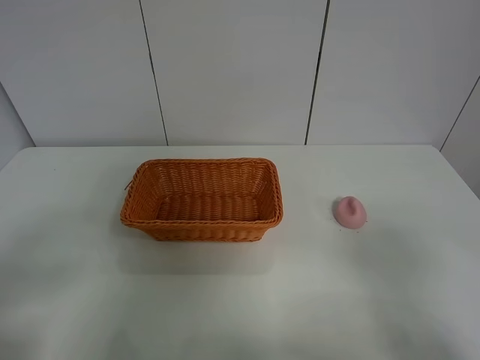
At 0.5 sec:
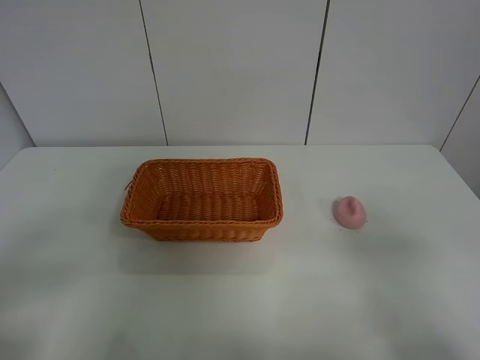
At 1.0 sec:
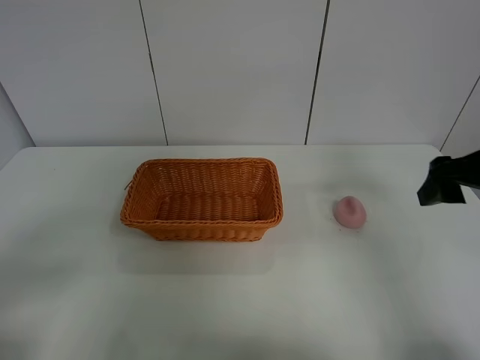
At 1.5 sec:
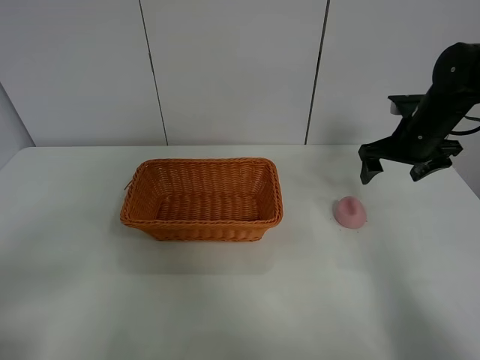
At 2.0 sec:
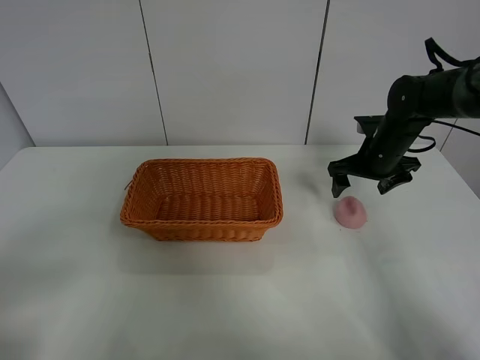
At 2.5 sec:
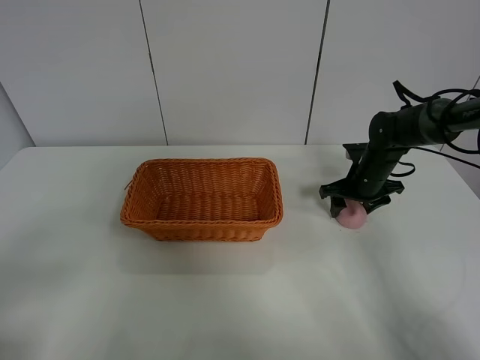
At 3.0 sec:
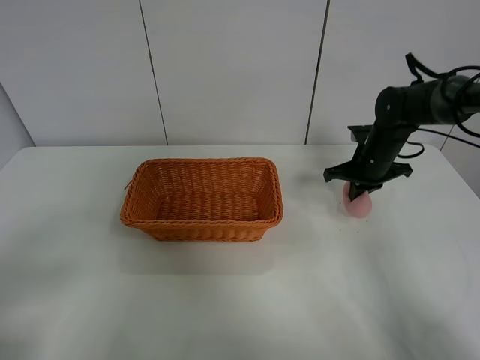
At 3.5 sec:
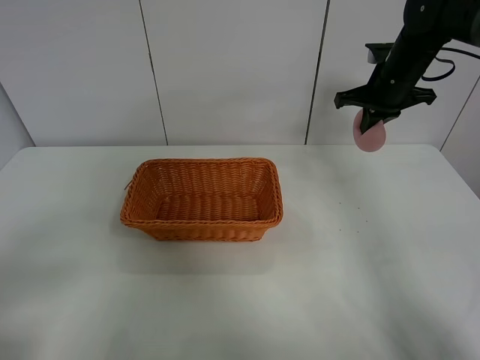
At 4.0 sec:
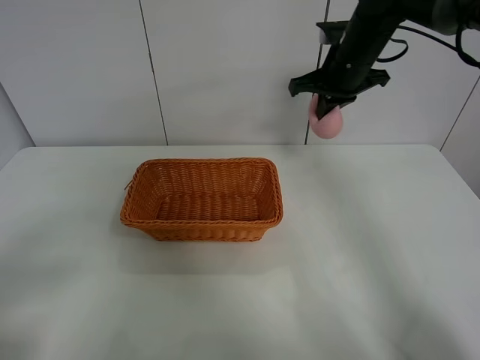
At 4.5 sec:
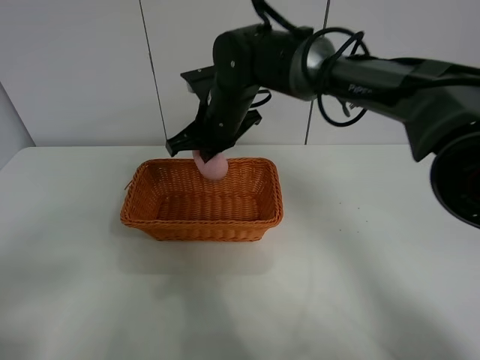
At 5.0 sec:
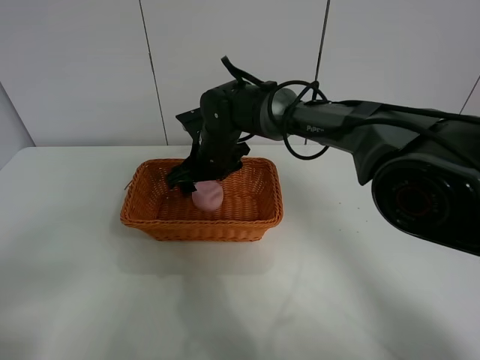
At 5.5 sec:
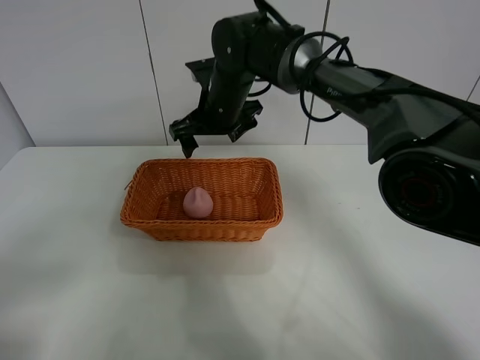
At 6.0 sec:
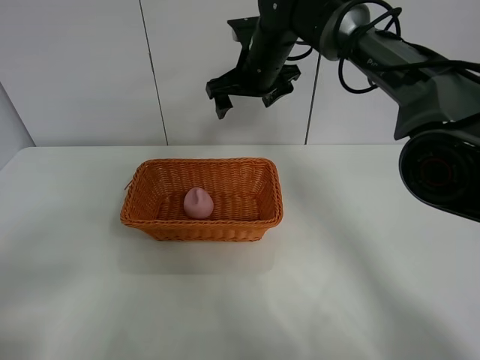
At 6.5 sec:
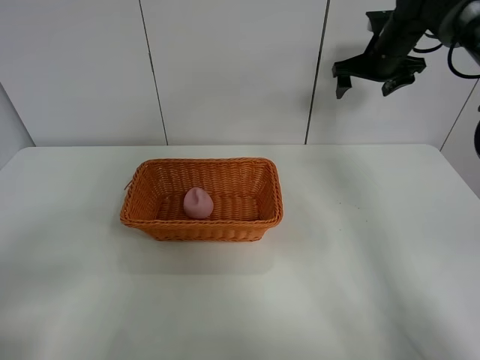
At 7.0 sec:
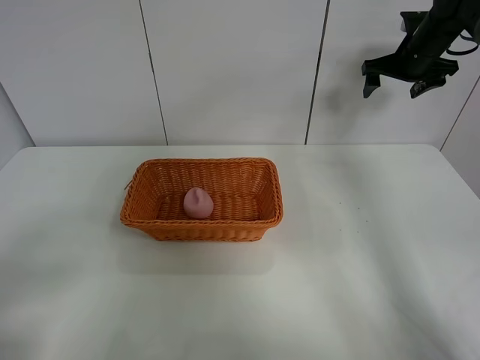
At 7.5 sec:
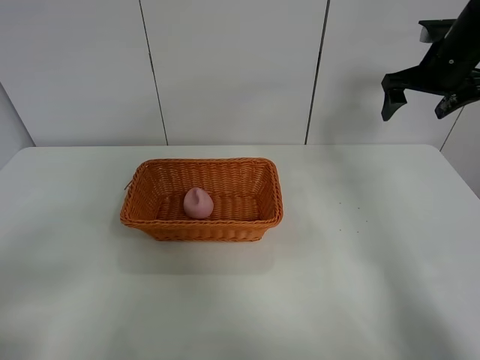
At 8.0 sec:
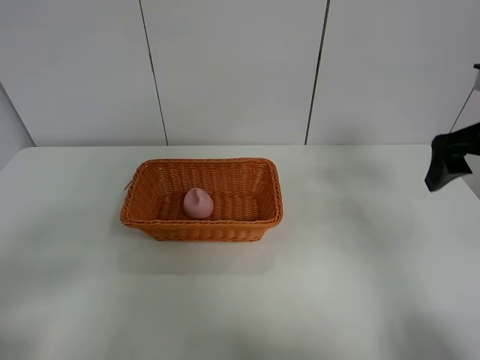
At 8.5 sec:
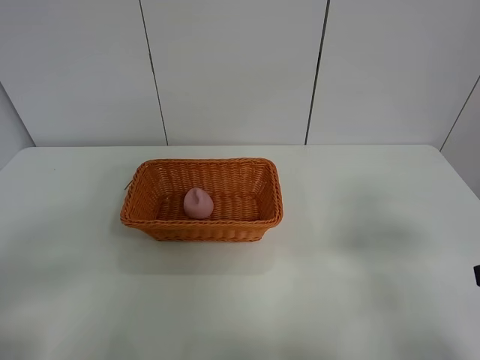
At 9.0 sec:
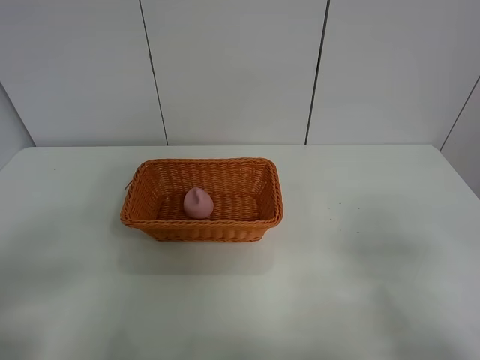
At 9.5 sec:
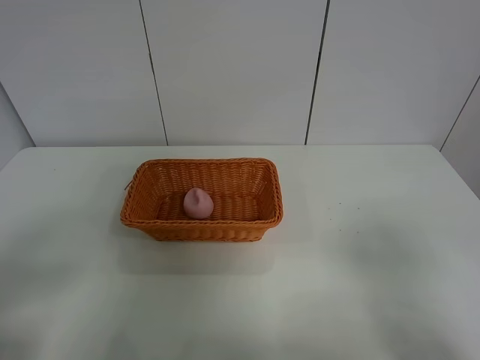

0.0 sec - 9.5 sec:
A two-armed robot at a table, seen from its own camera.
Step, 0.0 sec - 2.5 sec: Grasp the peach with right gripper.
Step, 3.0 sec - 5.5 sec: Place the peach in the basket with right gripper.
0.0 sec - 2.0 sec: The right gripper moves forward, approximately 40 cm.
2.0 sec - 4.0 sec: The right gripper is displaced upward and to the left by roughly 15 cm, and closes.
4.0 sec - 5.5 sec: The right gripper travels to the left by about 15 cm, and opens.
5.5 sec - 7.5 sec: The right gripper goes approximately 30 cm to the right.
7.5 sec - 9.5 sec: The right gripper is displaced backward by about 40 cm.
